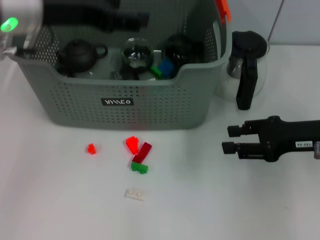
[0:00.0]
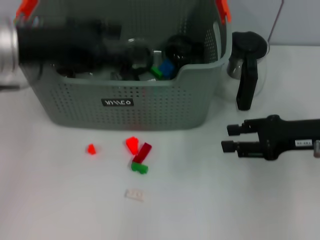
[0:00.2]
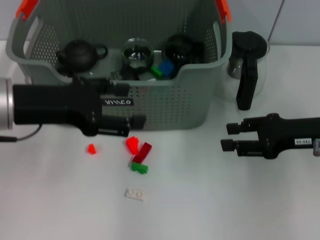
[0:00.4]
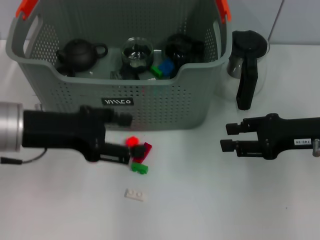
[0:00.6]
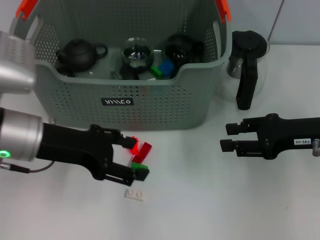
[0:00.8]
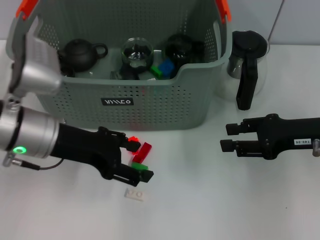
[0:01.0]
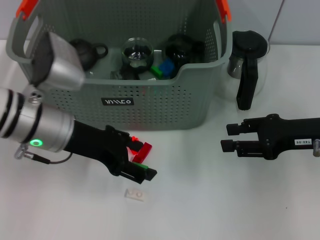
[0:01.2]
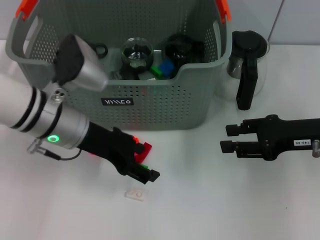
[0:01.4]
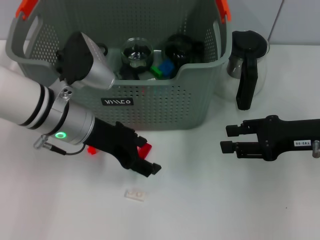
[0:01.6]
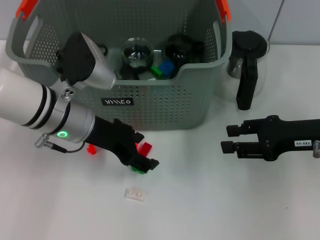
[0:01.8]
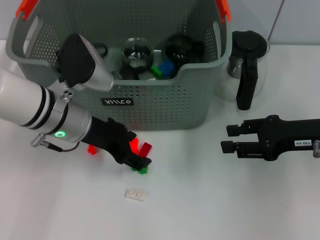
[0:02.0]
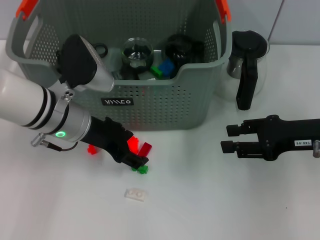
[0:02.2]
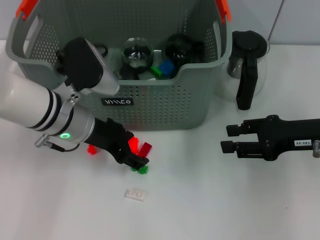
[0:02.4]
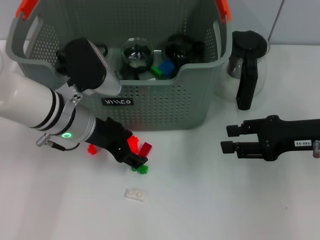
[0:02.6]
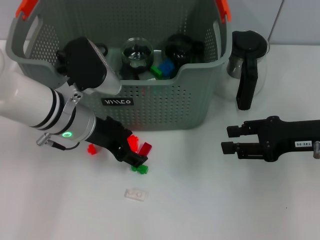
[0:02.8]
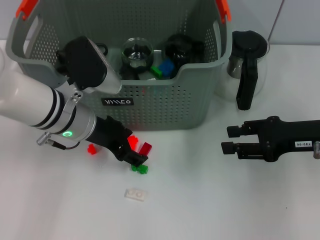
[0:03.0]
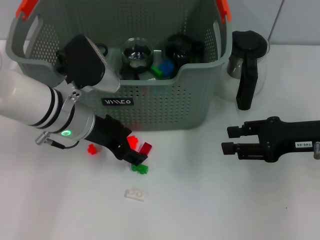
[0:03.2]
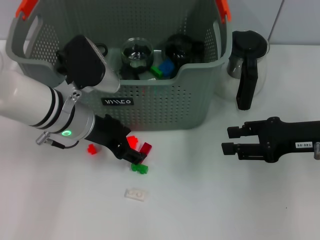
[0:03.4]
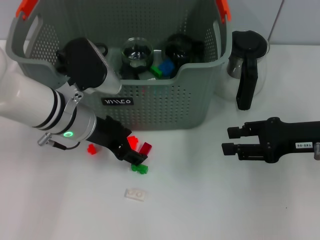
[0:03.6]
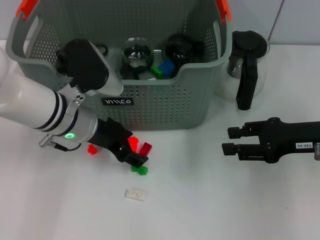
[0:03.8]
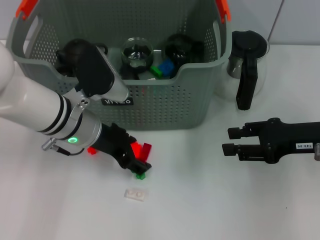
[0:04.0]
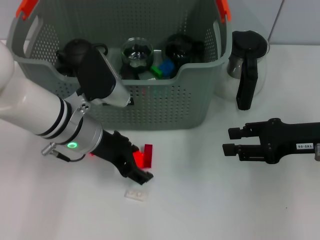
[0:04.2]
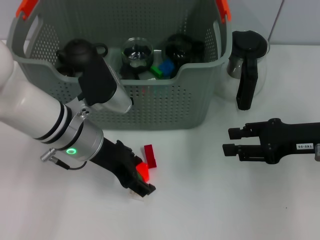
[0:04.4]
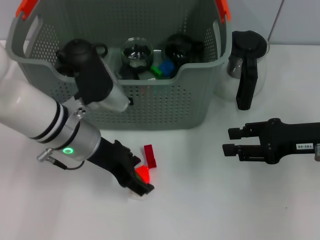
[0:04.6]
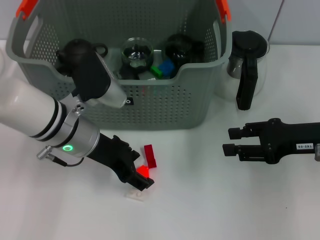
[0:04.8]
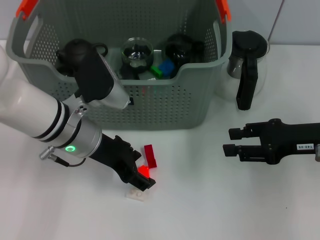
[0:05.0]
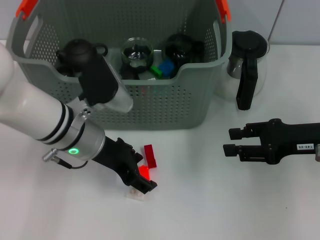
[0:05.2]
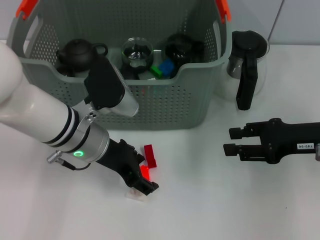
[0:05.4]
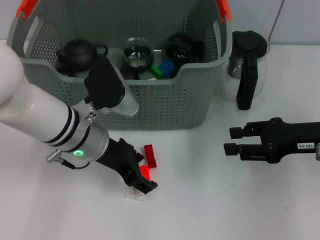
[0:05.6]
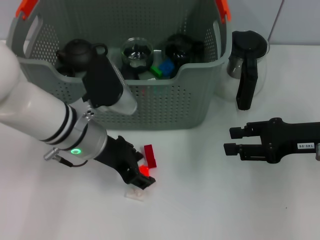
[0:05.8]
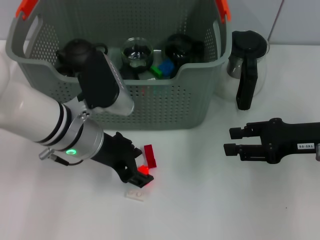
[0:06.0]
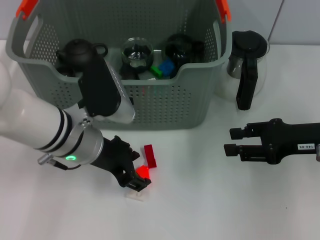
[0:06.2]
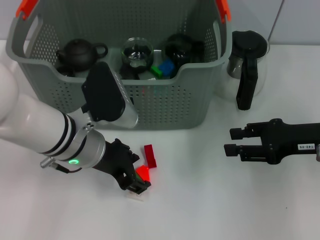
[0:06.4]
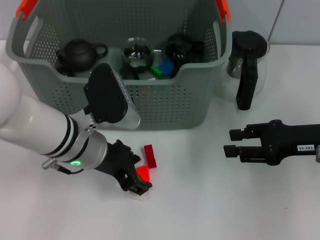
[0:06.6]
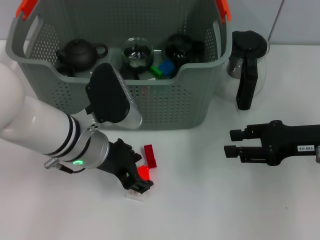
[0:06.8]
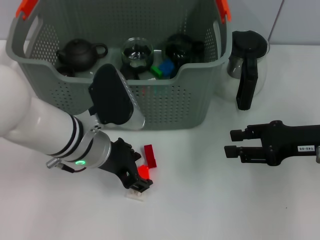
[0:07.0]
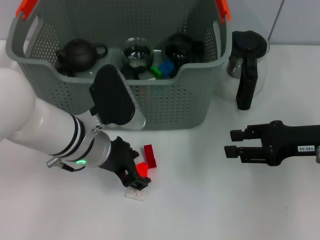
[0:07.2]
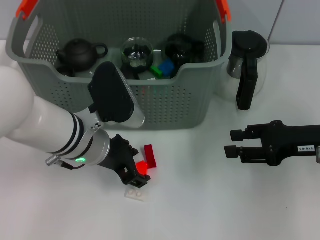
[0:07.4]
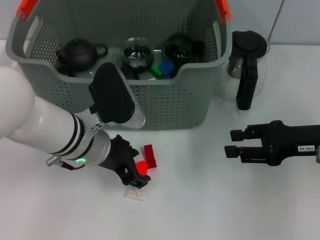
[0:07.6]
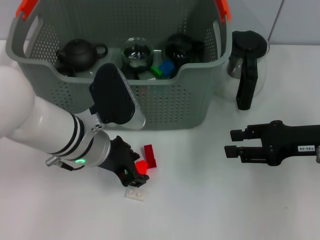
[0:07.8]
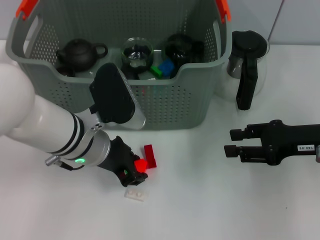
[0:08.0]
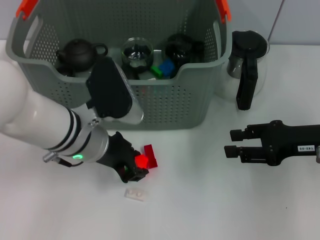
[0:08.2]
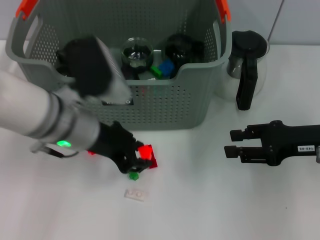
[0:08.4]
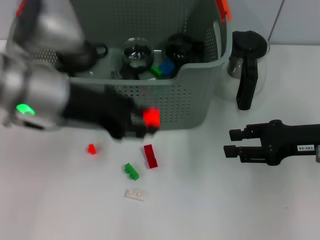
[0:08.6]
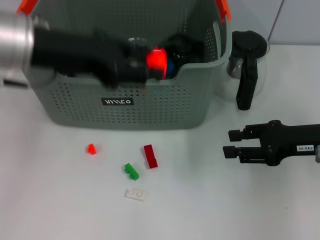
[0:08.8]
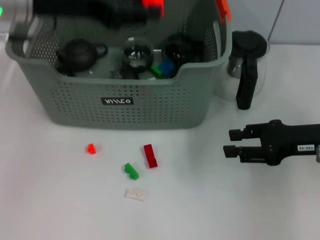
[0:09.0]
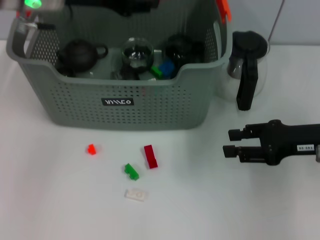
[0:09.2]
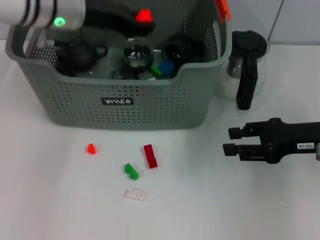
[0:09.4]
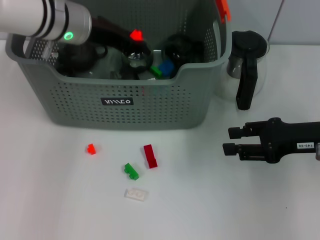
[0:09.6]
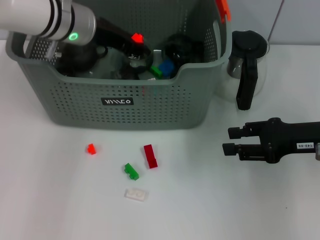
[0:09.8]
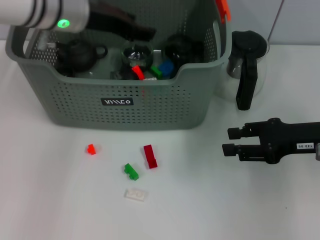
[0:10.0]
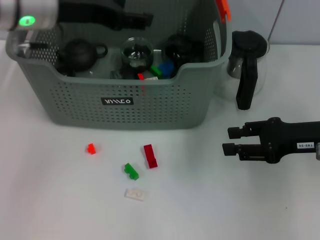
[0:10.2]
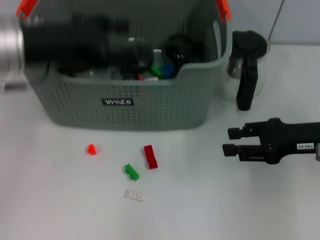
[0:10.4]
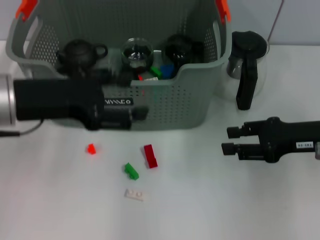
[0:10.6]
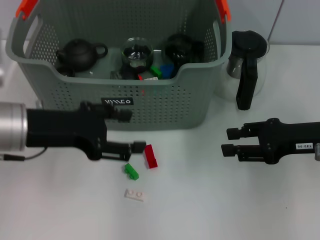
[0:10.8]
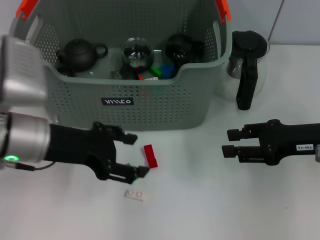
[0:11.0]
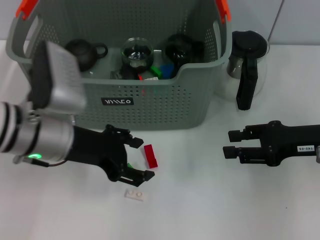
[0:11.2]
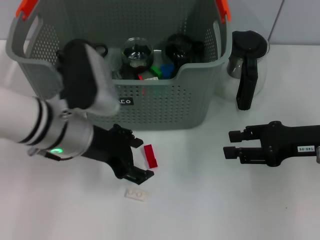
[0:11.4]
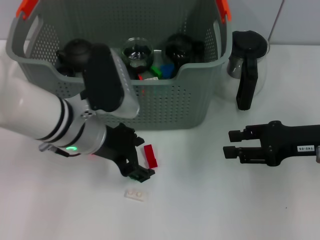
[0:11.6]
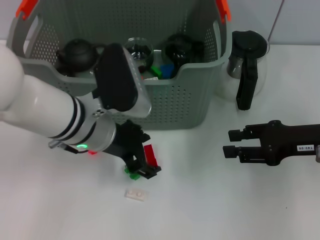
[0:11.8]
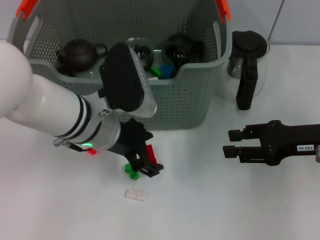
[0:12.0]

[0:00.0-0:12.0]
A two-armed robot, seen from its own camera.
Task of the whole recording: pick up the teacup on the table and place it into the storage bin, pick up the block on the table and place it into the storage bin.
Step, 0.0 to 8.2 s: Grasp the orange block with left gripper.
Step, 8.6 to 10.2 s: Place the orange block in the storage box with left gripper.
0.0 to 1.6 s: The left gripper is displaced downward by some 10 cm.
1.6 to 7.6 s: The grippers stay close to where they were, moving slightly.
7.6 to 9.0 s: The left gripper travels upward by roughly 20 cm, and closes up.
9.0 to 10.4 s: The left gripper moves downward, roughly 5 cm, reaches about 10 cm forward, then returns, and opens its fingers.
10.4 to 12.0 s: The left gripper is displaced to the right and downward by roughly 15 cm.

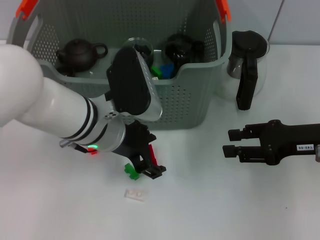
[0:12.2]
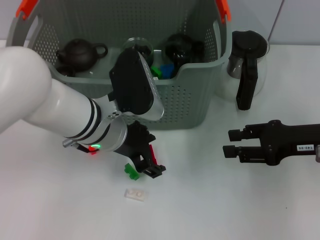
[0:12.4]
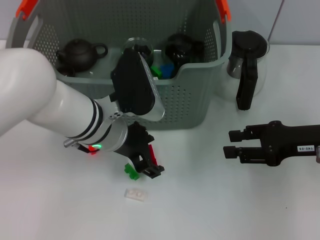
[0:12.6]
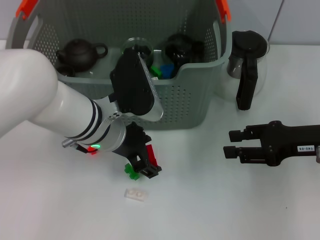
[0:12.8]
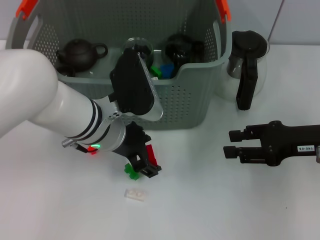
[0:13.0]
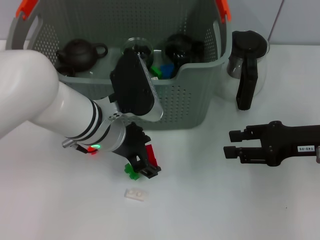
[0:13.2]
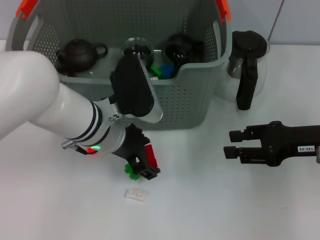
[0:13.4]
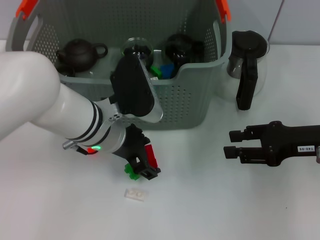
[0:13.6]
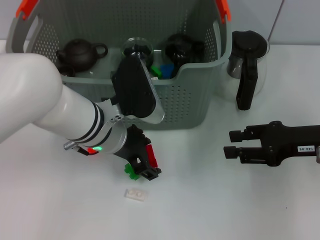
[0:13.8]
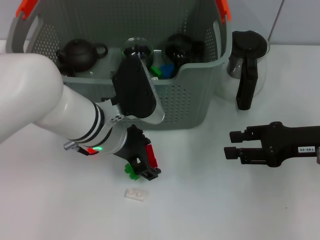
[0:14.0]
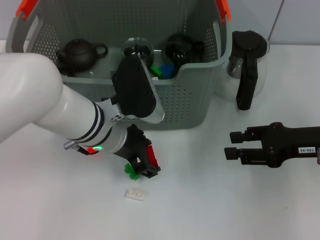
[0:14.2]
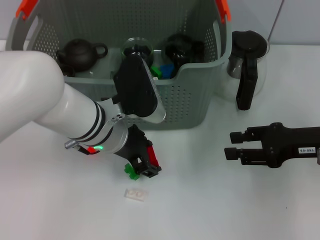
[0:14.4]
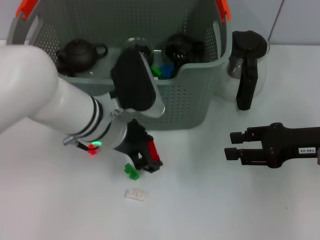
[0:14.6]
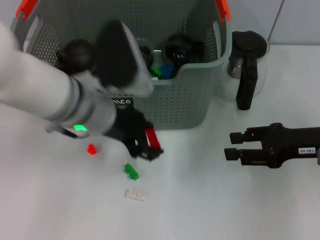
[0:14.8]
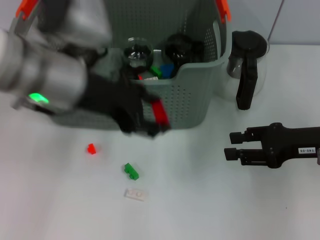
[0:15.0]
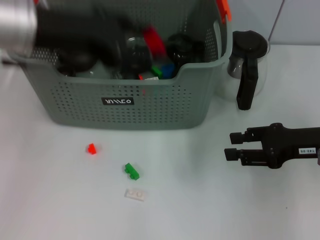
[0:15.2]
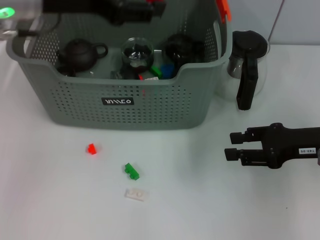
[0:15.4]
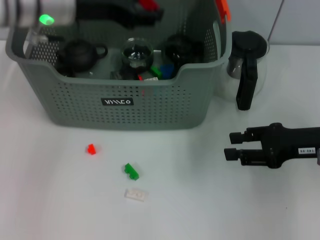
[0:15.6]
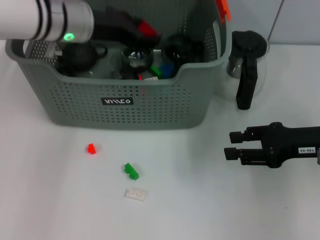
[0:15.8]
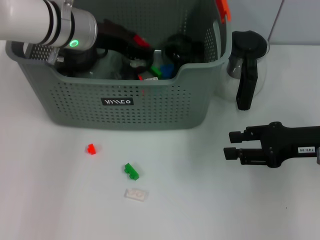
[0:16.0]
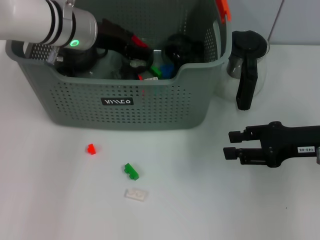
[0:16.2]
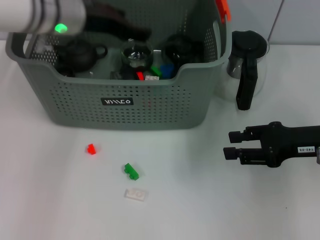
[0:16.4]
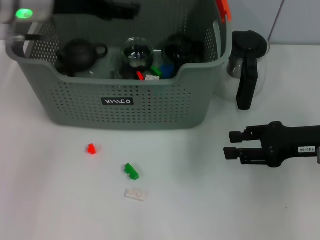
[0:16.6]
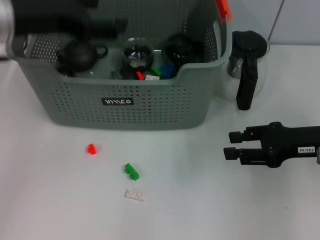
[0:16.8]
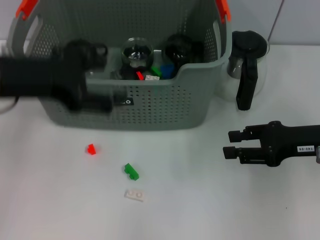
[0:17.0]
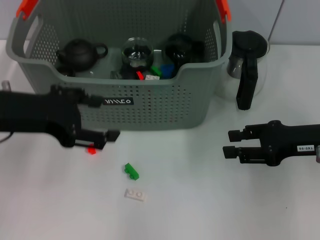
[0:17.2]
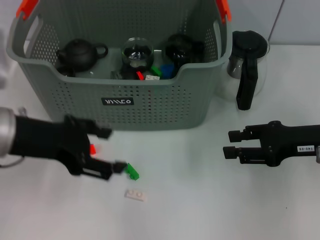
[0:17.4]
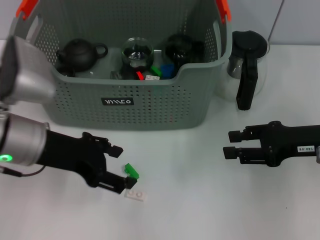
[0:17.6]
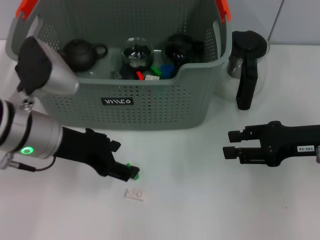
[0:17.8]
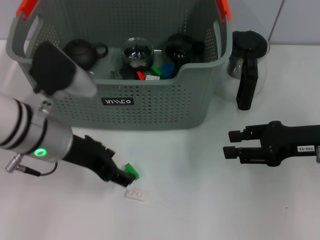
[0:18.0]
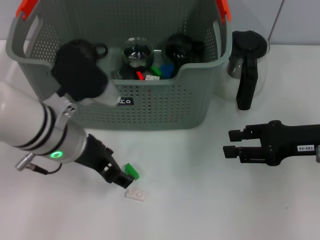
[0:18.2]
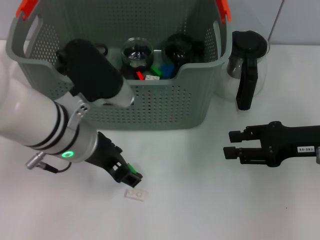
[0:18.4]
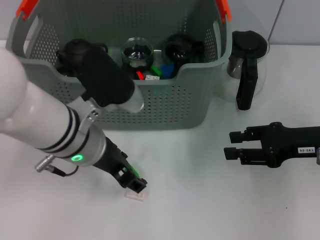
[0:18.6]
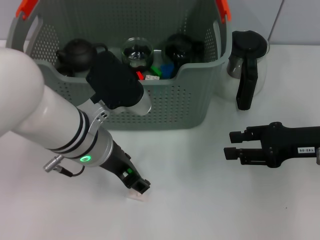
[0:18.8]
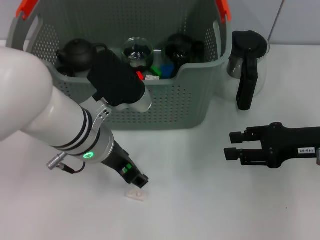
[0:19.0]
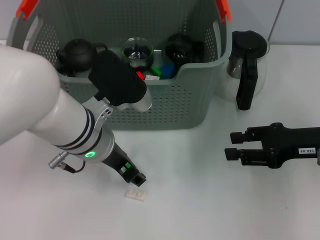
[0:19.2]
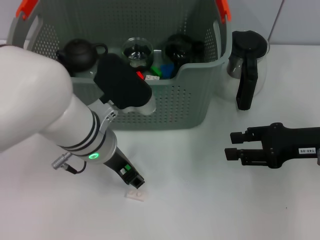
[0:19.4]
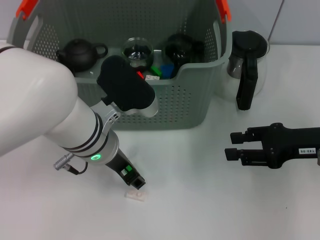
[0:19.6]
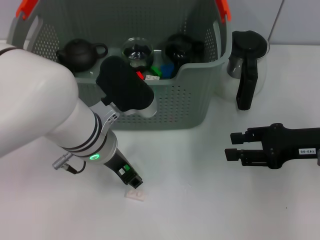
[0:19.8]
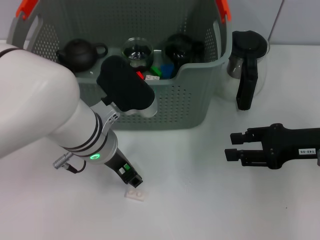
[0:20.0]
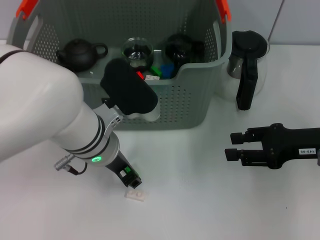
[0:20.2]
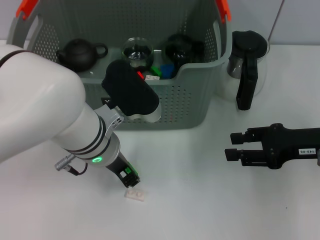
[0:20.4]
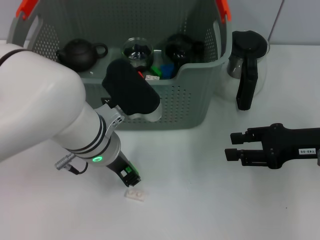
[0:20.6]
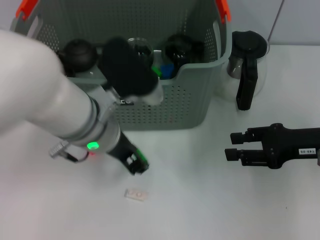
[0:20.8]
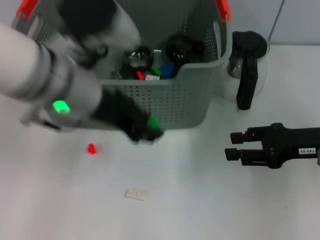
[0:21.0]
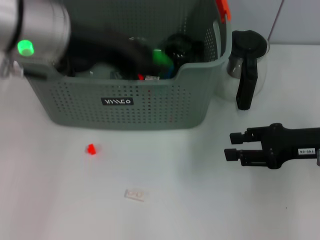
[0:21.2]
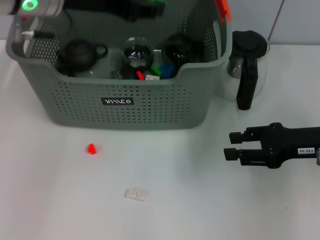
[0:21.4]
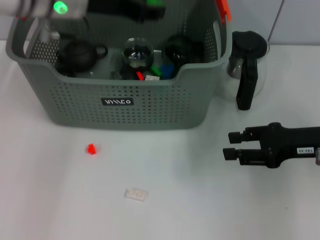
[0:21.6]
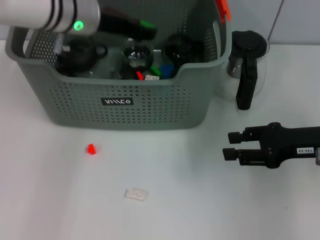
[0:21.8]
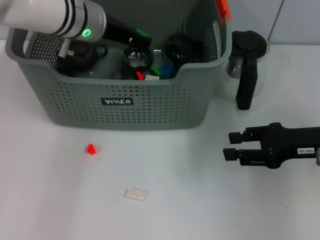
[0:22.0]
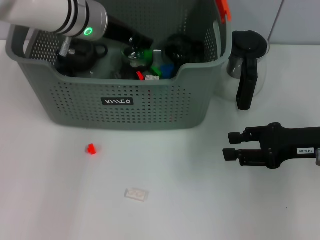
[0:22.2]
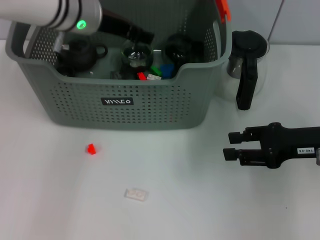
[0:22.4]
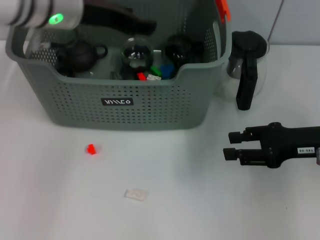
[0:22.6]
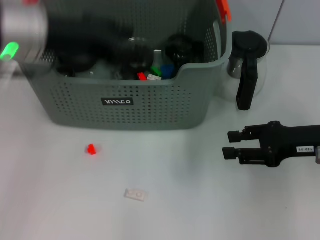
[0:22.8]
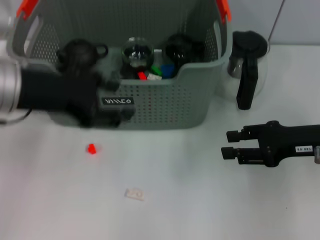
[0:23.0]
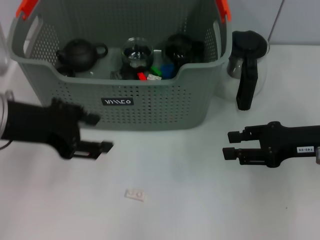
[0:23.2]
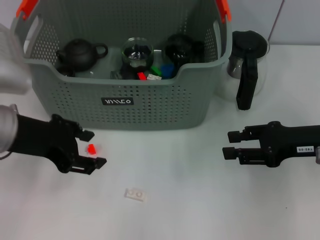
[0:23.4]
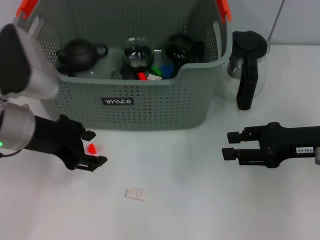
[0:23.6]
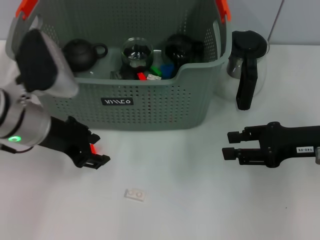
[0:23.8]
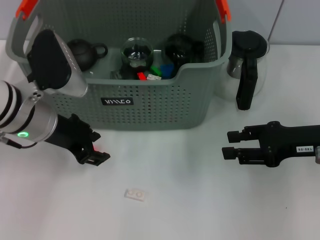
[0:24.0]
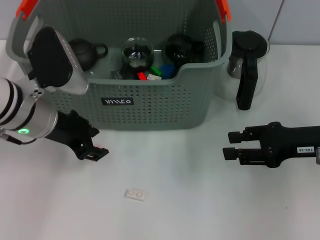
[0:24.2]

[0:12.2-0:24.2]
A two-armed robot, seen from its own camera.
Task of the whole recording: pick up the teacup on the table and place it into the storage bin, pick up the block on the table and place it into the storage bin.
Step, 12.2 to 14.6 s: Grasp the red block with left gripper.
Step, 15.0 to 16.6 s: Place the red block in the storage box with left gripper.
Step, 16.8 to 20.6 s: Grasp the green block with left gripper.
Step, 21.0 to 22.4 s: Place the green block in the storage box with left gripper.
12.2 to 13.8 s: The grippers move only a little.
13.8 to 15.2 s: The left gripper shifts about 20 cm upward and to the left.
15.2 to 16.6 s: The left gripper travels forward by roughly 5 cm.
16.6 to 18.2 s: The left gripper moves downward, backward and to the right, roughly 15 cm.
18.2 to 19.8 s: The left gripper changes place by approximately 5 cm.
19.8 to 21.2 s: The left gripper travels upward by about 15 cm, and closes its fingers.
21.2 to 22.6 s: The left gripper heads forward, covering approximately 10 cm.
22.6 to 24.2 s: The left gripper goes some 10 cm downward and backward.
